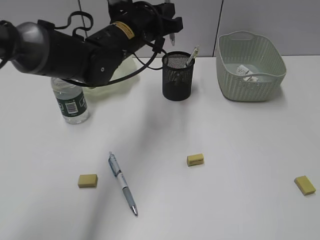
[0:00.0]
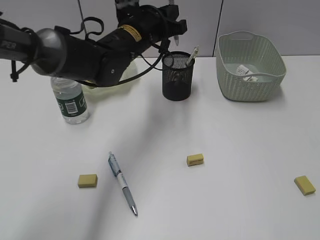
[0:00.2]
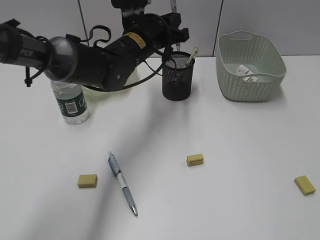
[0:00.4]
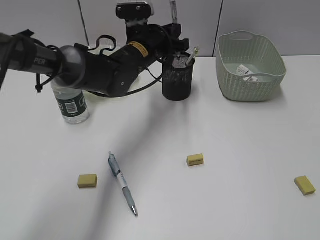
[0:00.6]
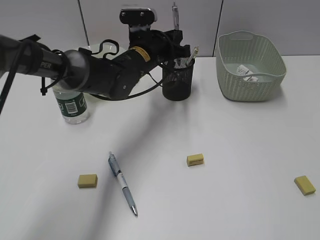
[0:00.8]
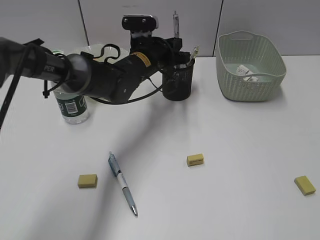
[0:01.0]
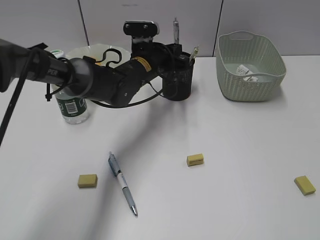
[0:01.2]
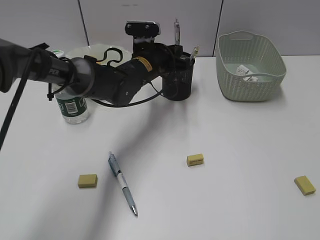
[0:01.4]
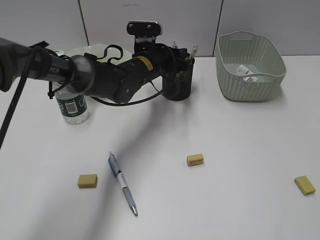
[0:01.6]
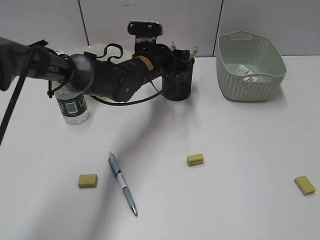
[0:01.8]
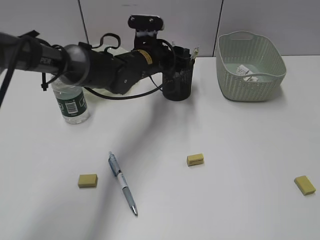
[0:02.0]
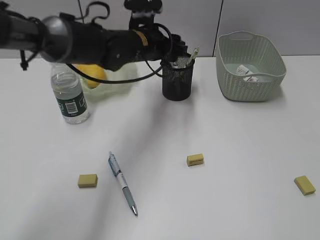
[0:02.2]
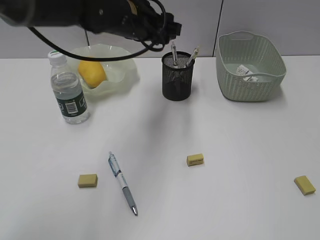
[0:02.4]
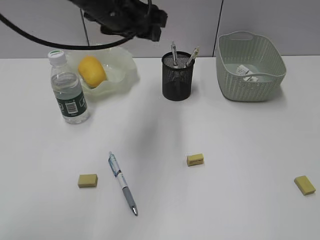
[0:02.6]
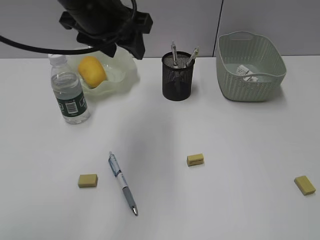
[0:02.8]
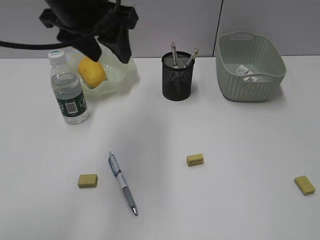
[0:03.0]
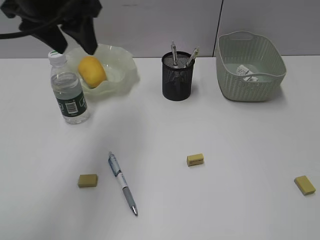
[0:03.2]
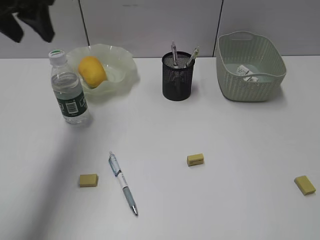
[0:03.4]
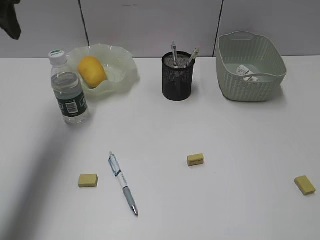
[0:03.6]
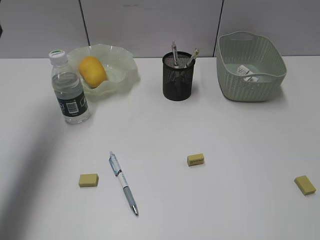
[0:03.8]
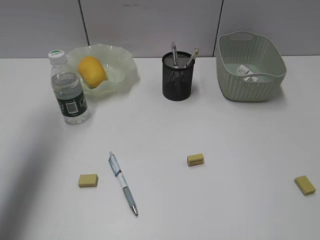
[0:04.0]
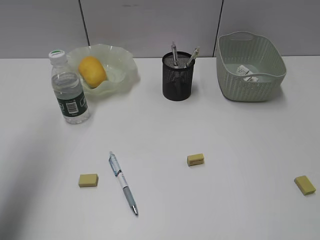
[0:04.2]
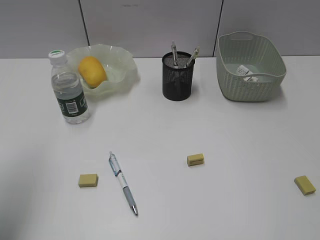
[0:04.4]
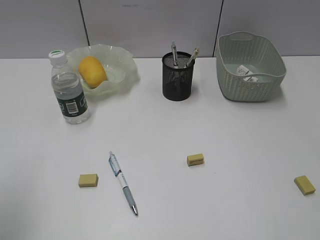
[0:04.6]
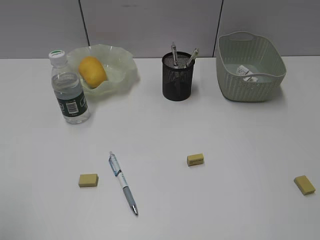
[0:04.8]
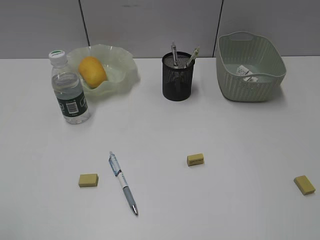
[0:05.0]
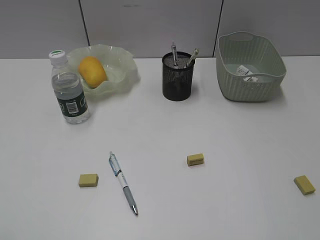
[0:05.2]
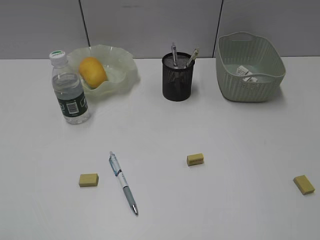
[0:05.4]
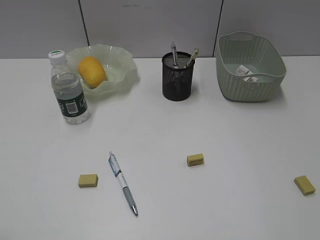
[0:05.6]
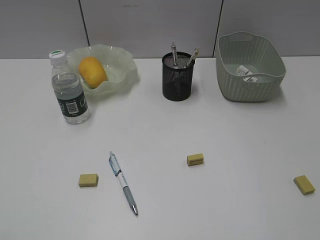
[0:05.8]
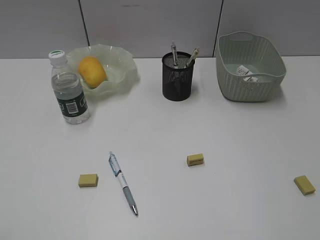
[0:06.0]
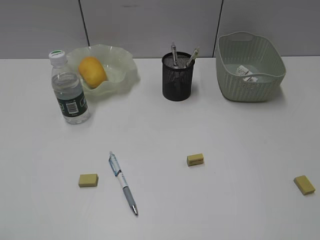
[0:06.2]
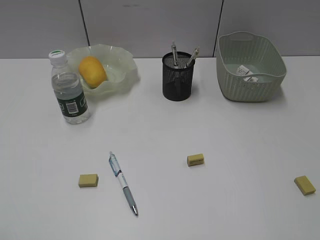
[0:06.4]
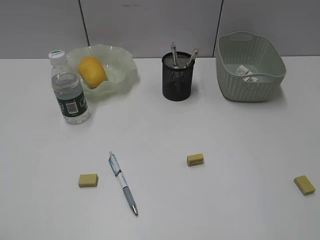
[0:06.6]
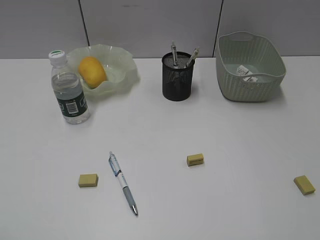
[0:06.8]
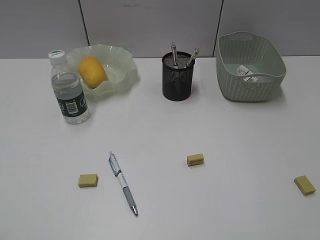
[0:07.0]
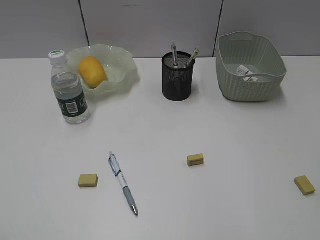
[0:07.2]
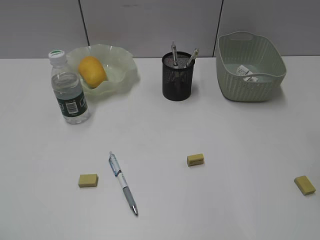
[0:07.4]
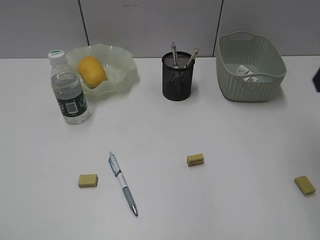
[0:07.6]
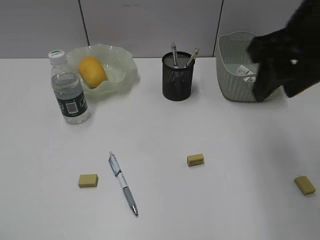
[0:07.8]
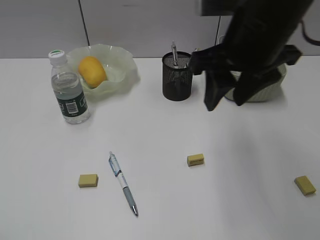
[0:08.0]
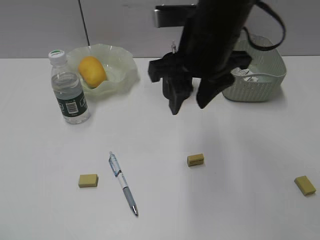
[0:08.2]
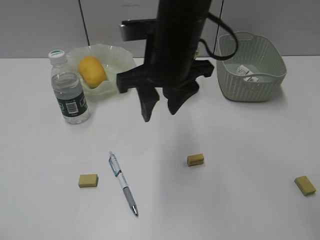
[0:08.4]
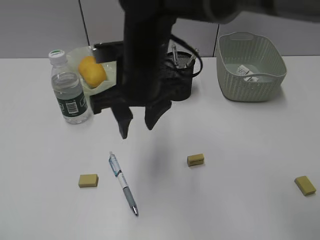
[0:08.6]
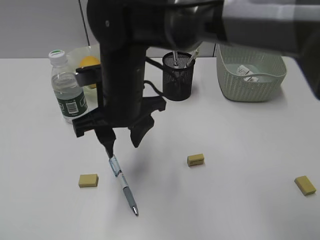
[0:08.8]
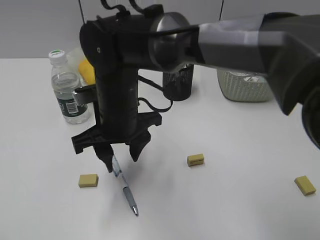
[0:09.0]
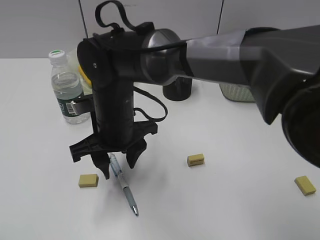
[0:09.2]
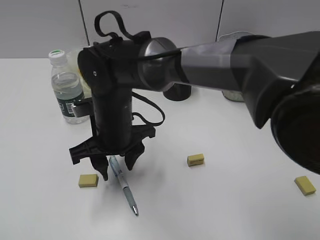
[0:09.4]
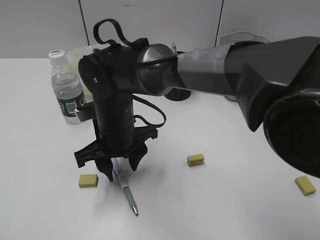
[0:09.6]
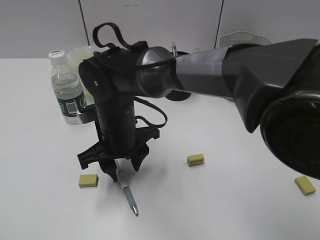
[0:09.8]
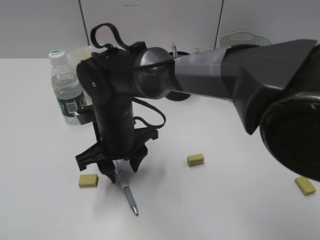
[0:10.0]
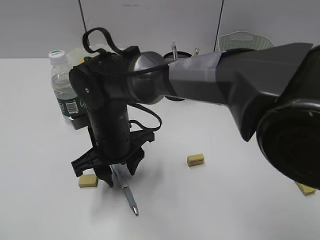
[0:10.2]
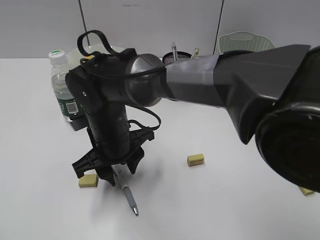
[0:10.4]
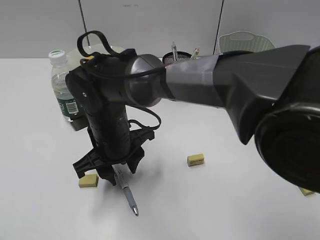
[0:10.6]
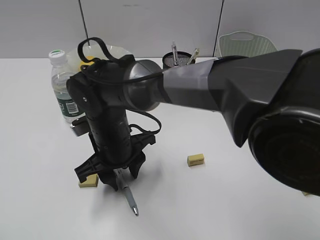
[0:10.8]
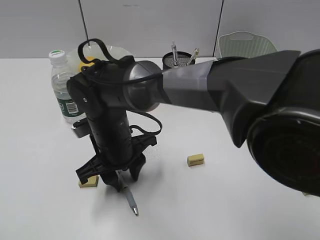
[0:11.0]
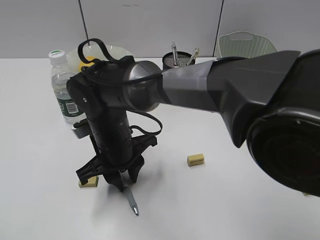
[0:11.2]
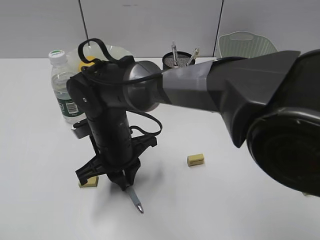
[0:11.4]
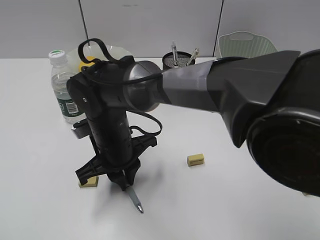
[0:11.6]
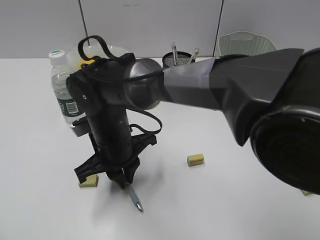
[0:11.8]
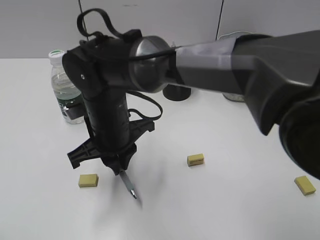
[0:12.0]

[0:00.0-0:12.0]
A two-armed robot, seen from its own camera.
Step, 0:00.0 to 0:02.0: Place the gray pen in pen holder with left gripper.
Step, 0:02.2 to 0:11.6: Grasp the blue pen with right gripper.
0:00.0 to 0:01.6: The left gripper is displaced downward by roughly 10 cm, and opens up.
0:01.6 to 0:03.0: The left gripper heads upward, backward and to the left, covering about 25 cm.
0:03.0 to 0:04.4: The left gripper shifts some 25 cm to the left and backward.
0:04.4 to 0:06.0: The left gripper heads backward, covering roughly 20 cm.
0:07.6 to 0:09.0: The right gripper travels to the left and downward by approximately 35 cm.
0:09.0 to 0:10.4: The right gripper goes some 5 cm downward.
0:10.4 to 0:12.0: The right gripper closes.

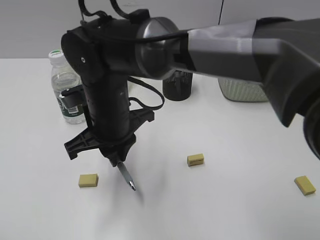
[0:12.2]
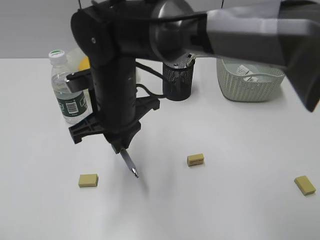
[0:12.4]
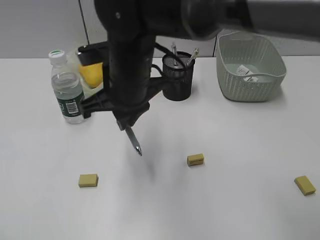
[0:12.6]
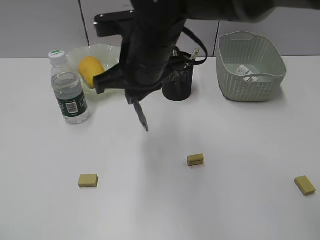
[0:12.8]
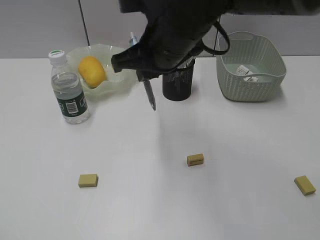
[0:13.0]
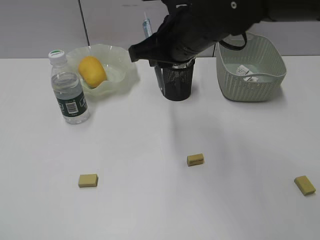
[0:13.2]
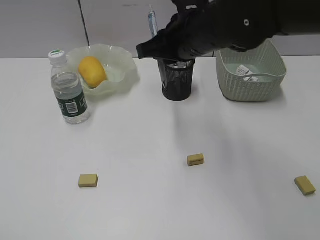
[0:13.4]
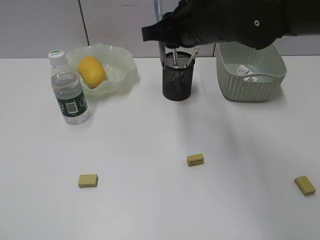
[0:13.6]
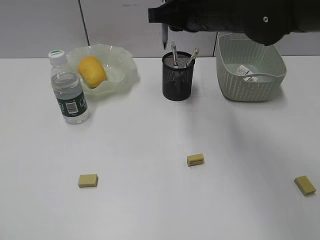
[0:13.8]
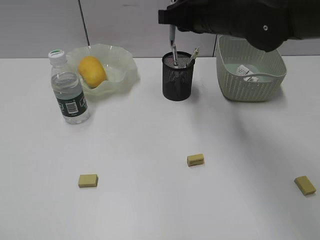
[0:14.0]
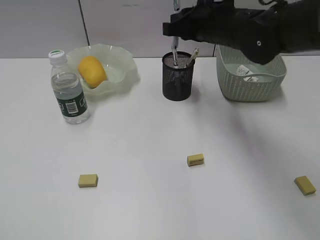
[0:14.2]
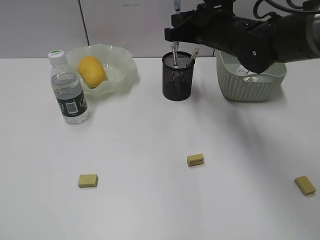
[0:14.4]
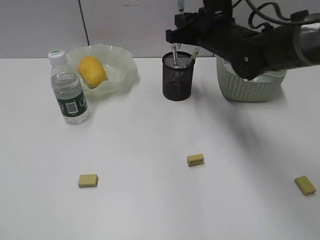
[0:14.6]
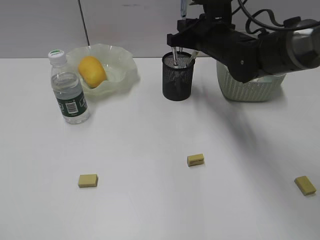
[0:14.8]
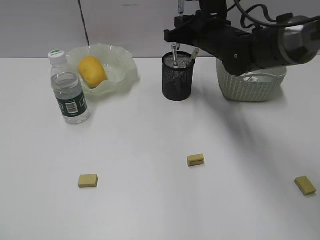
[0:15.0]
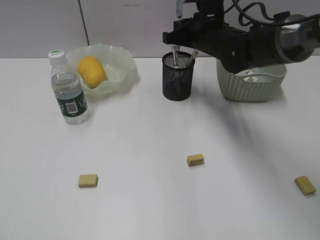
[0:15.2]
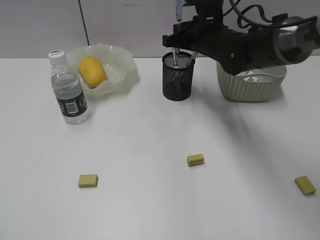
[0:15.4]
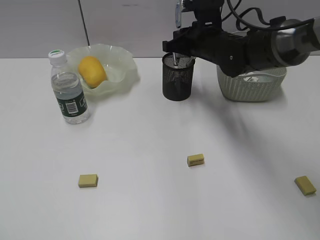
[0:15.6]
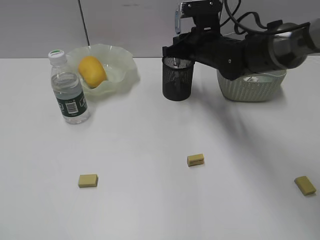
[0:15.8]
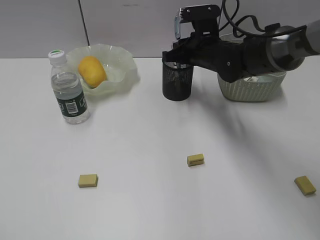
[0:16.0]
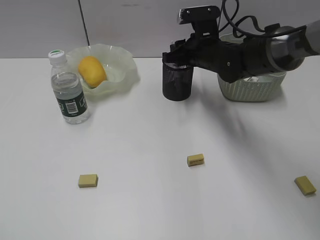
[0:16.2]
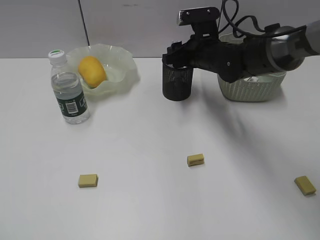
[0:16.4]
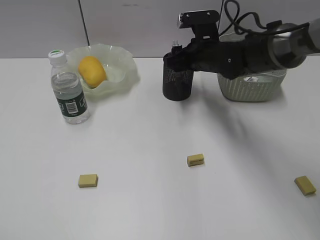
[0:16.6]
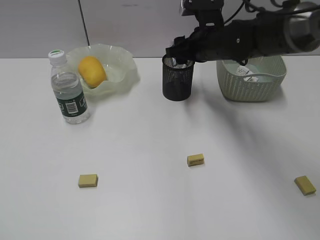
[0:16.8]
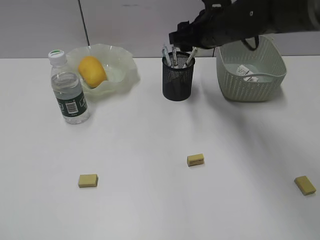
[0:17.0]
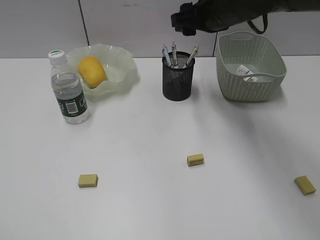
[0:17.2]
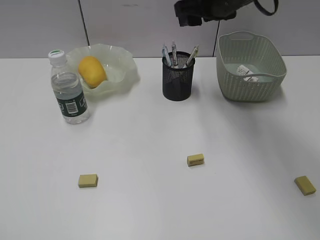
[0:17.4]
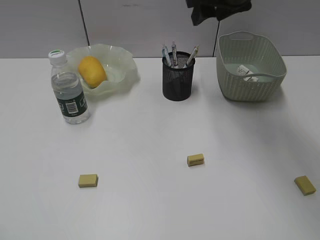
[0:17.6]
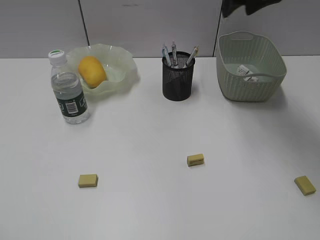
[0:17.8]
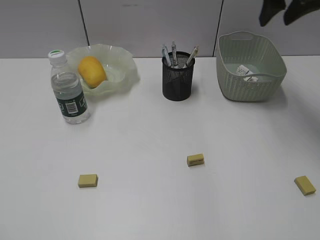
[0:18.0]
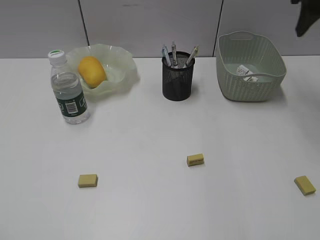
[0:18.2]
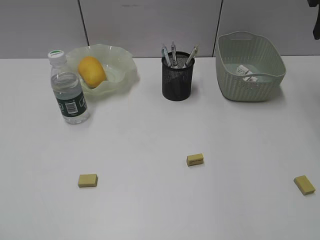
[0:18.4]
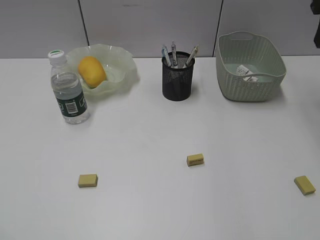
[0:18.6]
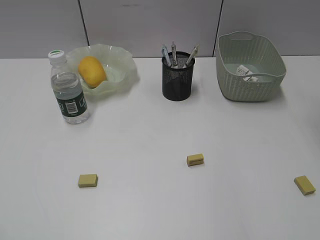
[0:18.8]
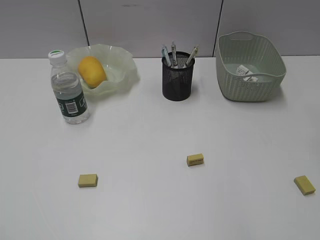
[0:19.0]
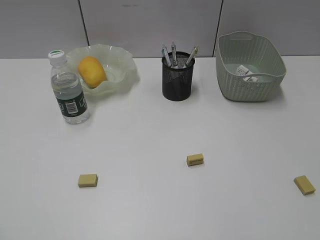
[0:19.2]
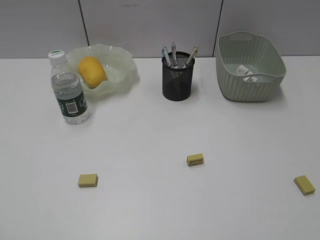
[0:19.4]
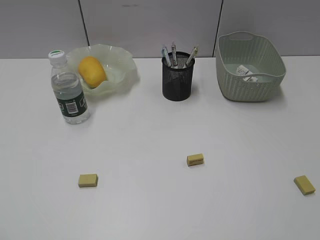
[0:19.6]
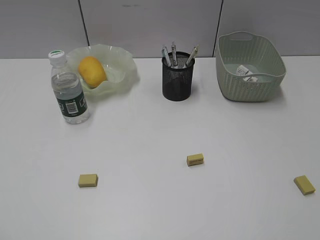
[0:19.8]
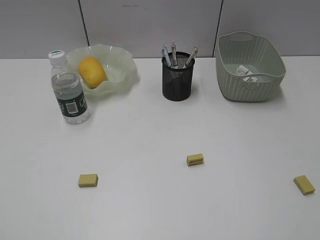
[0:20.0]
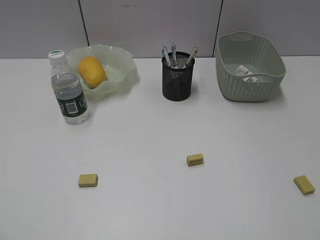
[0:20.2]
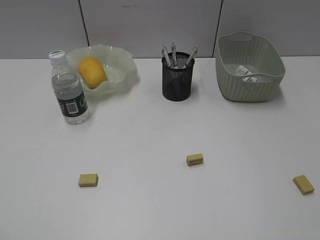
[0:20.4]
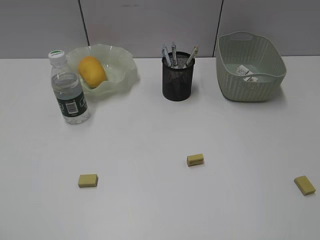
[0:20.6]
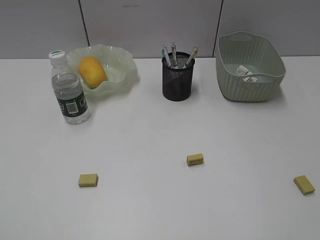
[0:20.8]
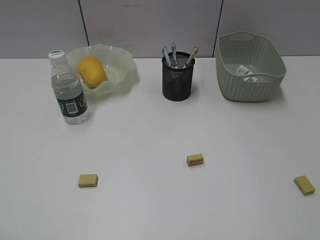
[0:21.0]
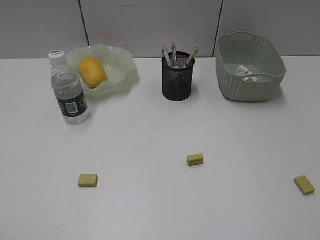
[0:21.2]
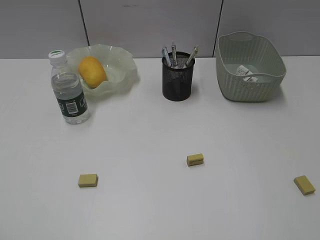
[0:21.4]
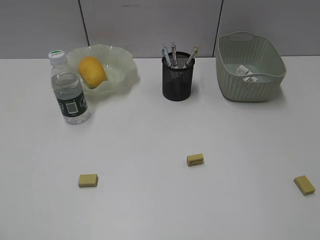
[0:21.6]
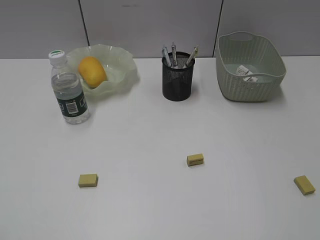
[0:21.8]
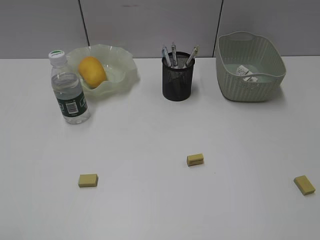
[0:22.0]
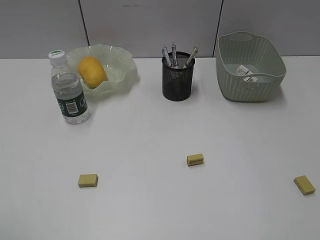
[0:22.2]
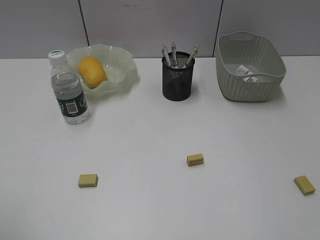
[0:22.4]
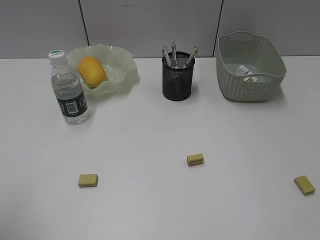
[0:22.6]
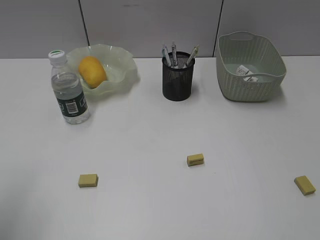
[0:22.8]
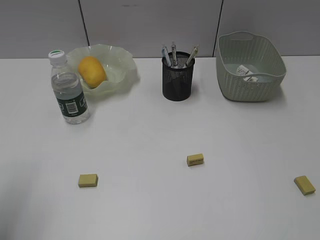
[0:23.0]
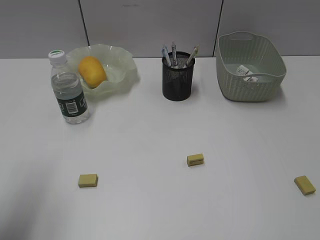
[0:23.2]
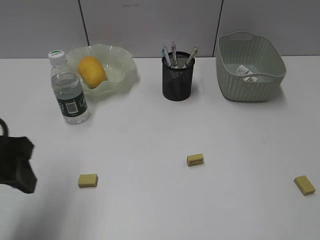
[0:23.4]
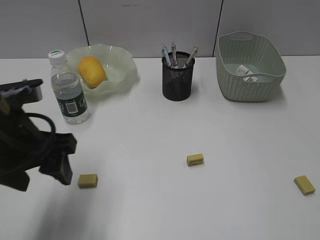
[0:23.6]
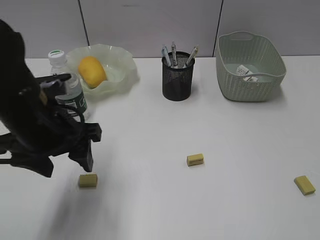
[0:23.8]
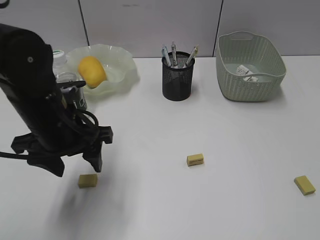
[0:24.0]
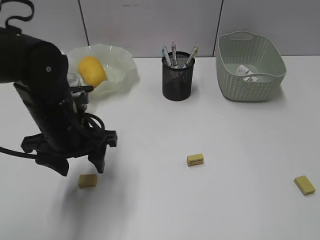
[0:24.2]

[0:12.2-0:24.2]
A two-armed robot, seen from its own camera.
Step, 0:12.2 to 0:16.8: Place the blue pen in pen holder with right gripper.
0:12.2 to 0:13.8: The right gripper heads to the right, upward and forward, covering approximately 20 cm.
0:13.8 to 0:15.2: The right gripper heads downward and forward, covering approximately 10 cm.
0:15.2 to 0:16.6: The right gripper opens its fingers.
0:16.6 to 0:18.2: The right gripper shifts roughly 25 cm to the right and upward.
0:18.2 to 0:19.8: The right gripper is displaced backward by approximately 35 cm.
0:22.6 to 0:24.2: The left gripper heads forward, to the right and downward, covering about 30 cm.
